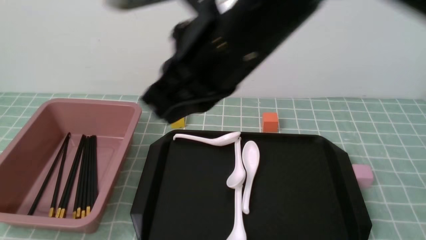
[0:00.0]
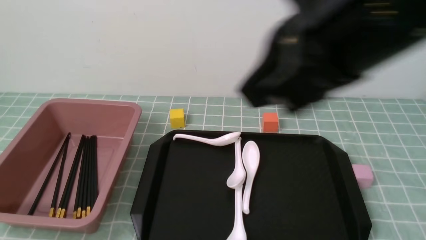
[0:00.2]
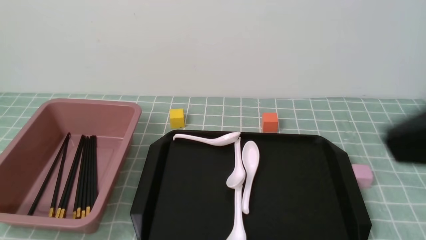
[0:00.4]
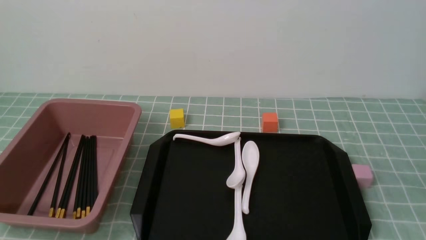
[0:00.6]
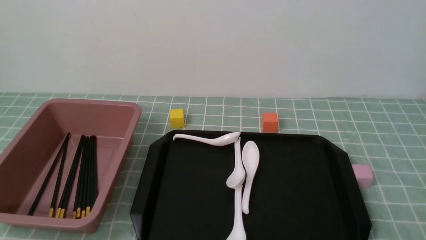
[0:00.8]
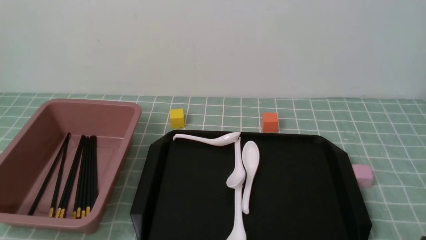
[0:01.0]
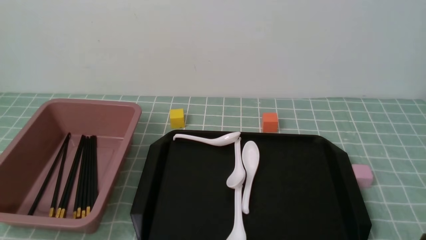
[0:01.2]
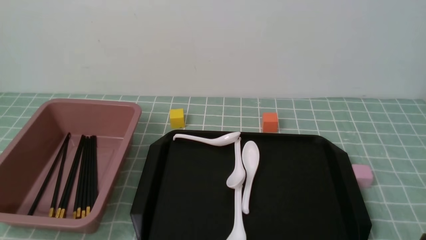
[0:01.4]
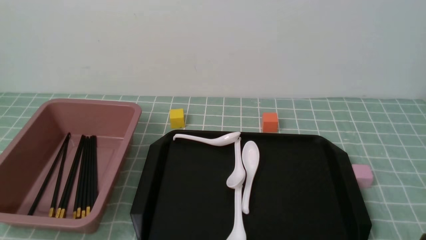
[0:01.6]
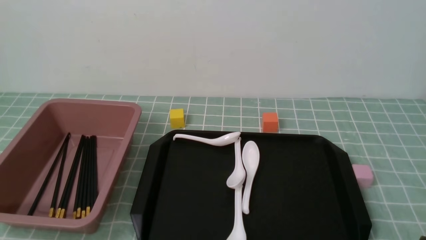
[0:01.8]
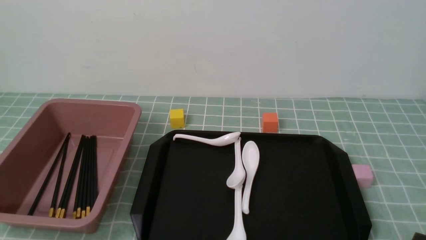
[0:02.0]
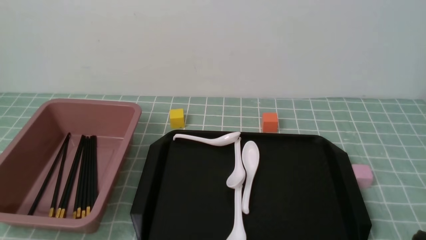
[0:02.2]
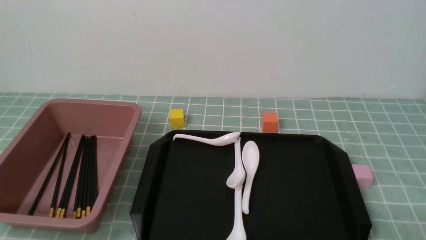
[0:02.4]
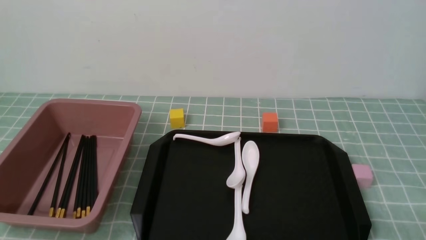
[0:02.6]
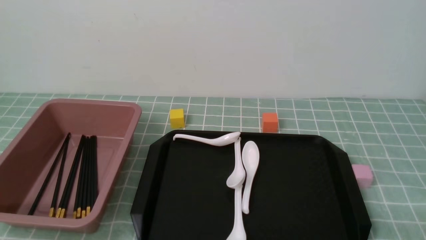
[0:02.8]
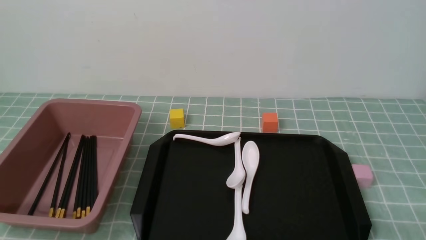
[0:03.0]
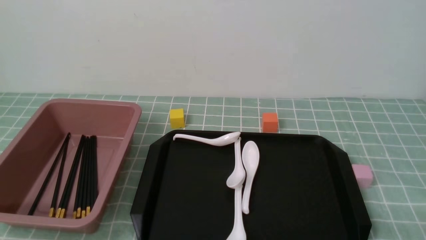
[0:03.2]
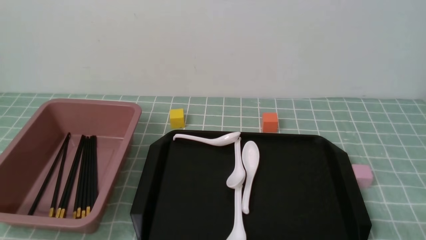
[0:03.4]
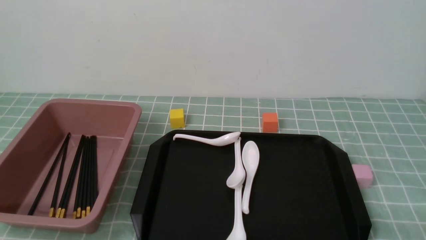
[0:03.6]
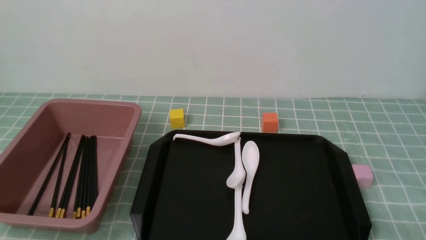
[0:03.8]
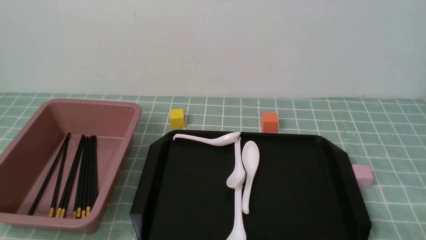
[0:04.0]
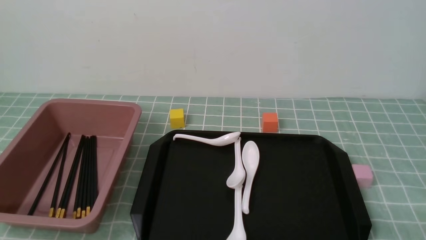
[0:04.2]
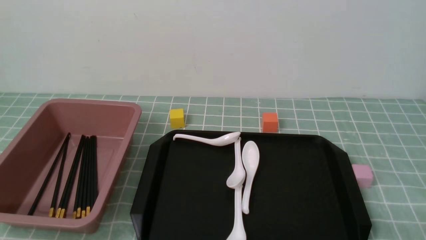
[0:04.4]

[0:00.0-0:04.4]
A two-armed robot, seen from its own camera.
0:00.0 to 0:01.4: The right gripper goes some 35 cm to the right, backward and downward.
0:03.0 to 0:04.4: Both grippers stay put.

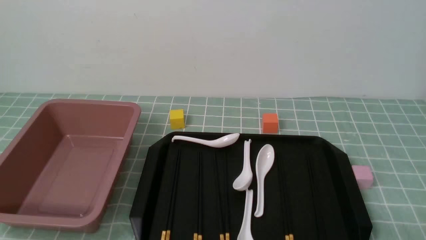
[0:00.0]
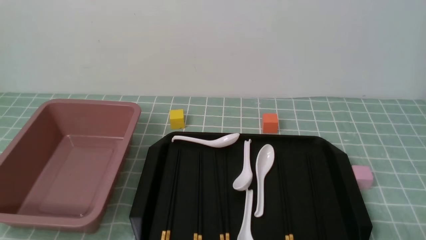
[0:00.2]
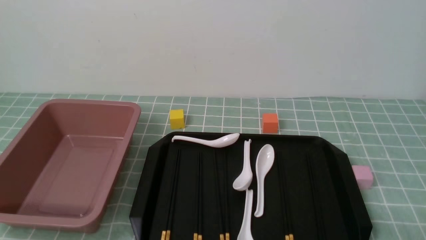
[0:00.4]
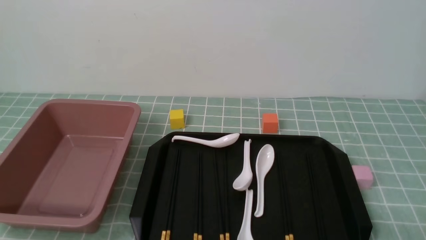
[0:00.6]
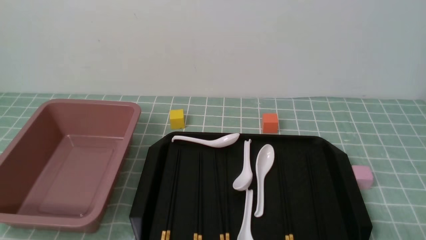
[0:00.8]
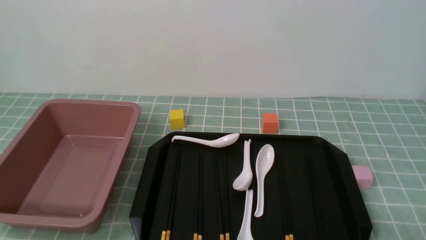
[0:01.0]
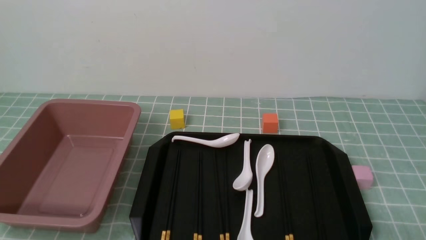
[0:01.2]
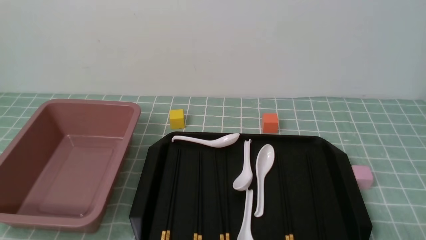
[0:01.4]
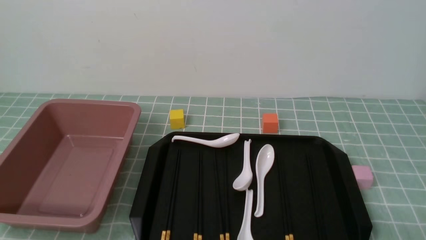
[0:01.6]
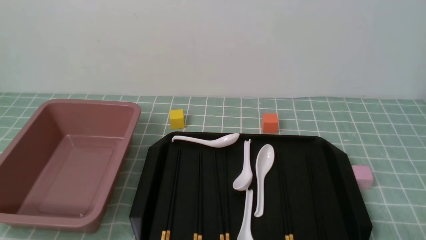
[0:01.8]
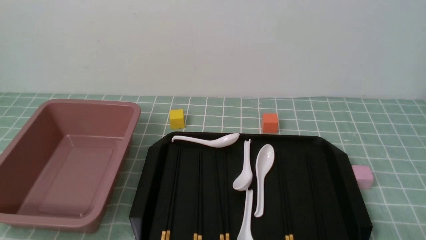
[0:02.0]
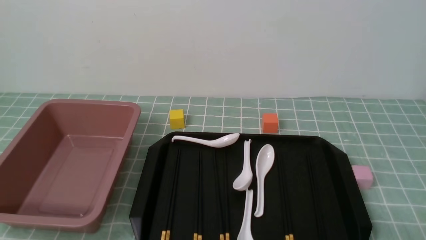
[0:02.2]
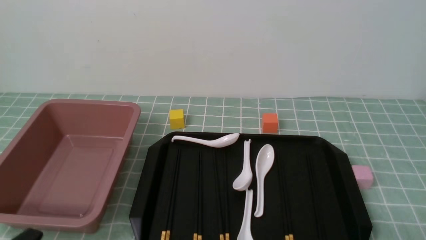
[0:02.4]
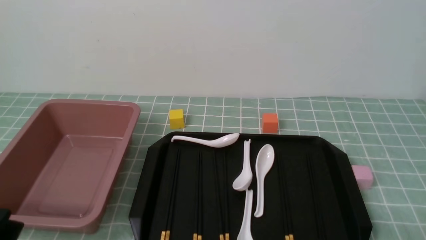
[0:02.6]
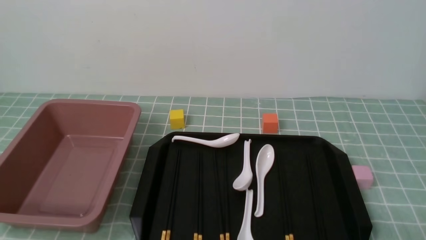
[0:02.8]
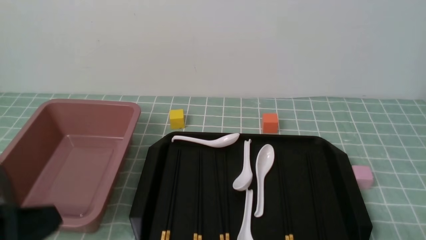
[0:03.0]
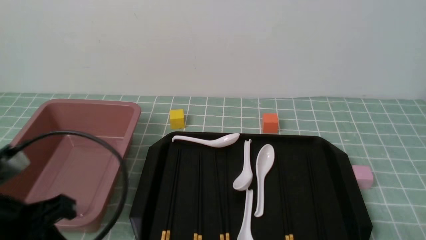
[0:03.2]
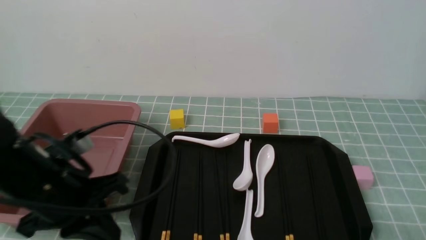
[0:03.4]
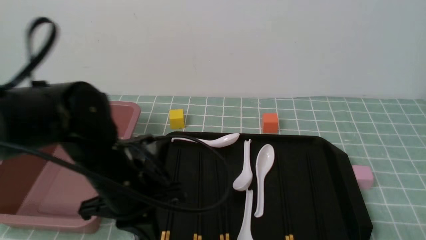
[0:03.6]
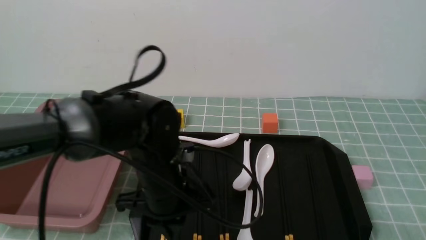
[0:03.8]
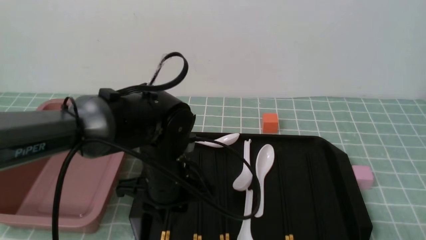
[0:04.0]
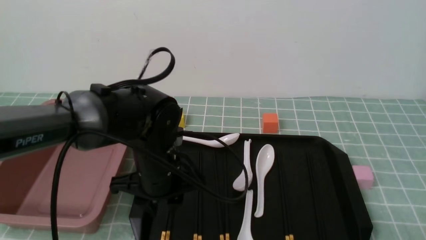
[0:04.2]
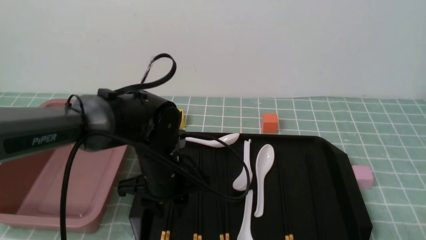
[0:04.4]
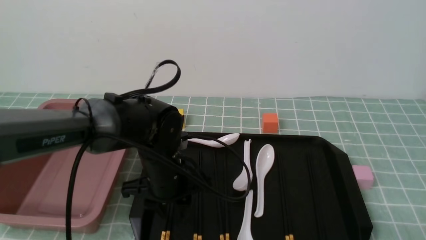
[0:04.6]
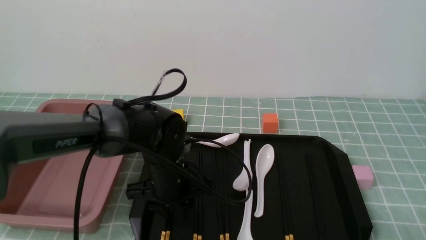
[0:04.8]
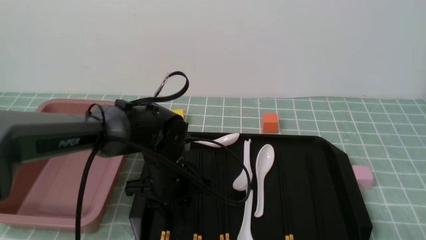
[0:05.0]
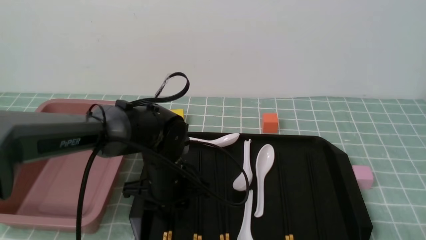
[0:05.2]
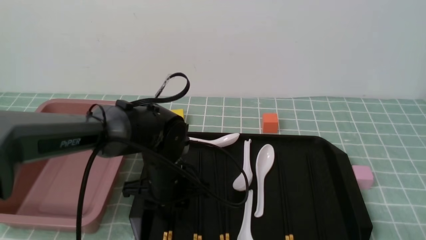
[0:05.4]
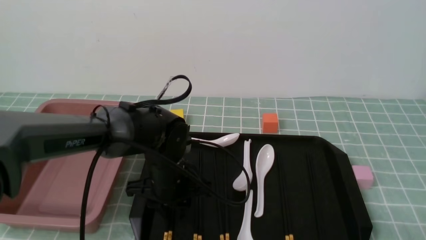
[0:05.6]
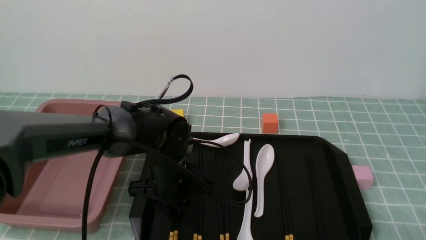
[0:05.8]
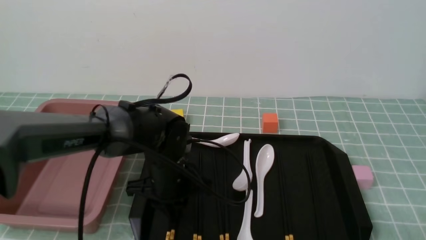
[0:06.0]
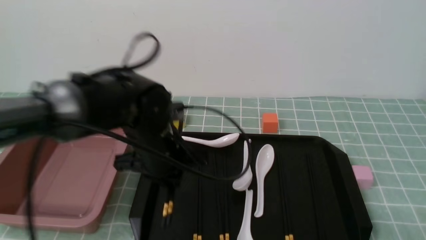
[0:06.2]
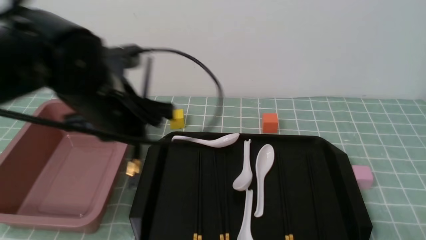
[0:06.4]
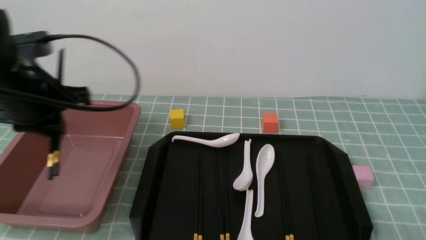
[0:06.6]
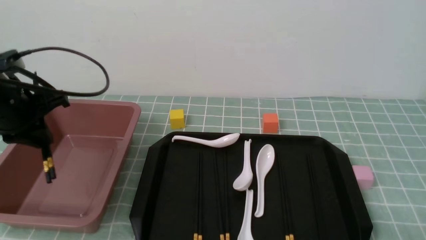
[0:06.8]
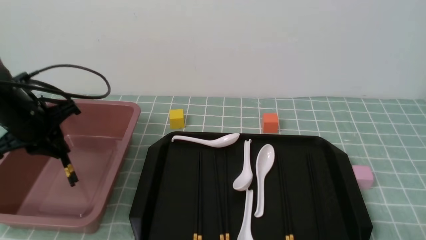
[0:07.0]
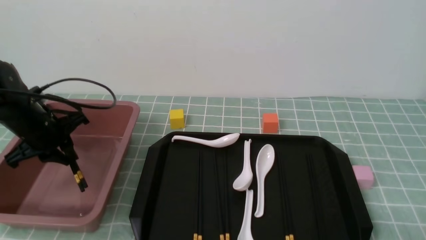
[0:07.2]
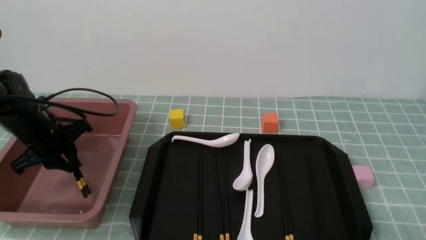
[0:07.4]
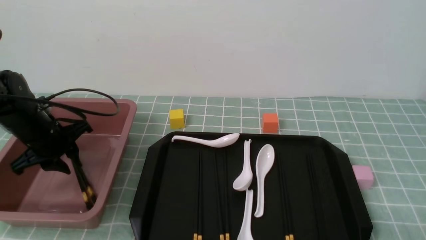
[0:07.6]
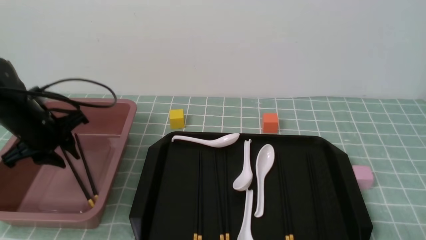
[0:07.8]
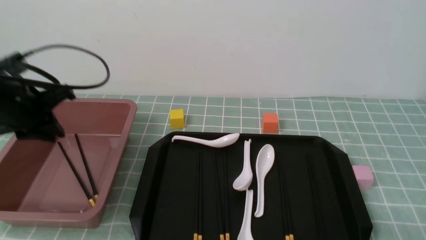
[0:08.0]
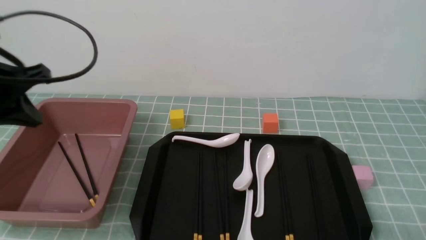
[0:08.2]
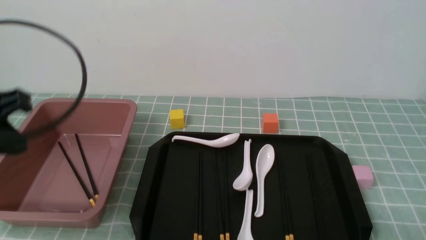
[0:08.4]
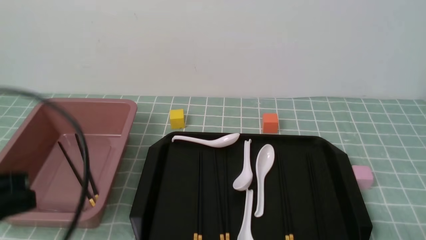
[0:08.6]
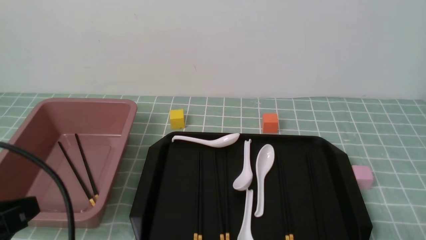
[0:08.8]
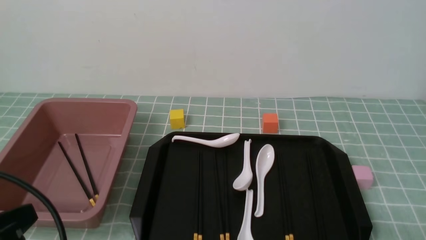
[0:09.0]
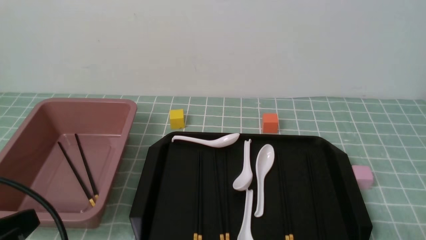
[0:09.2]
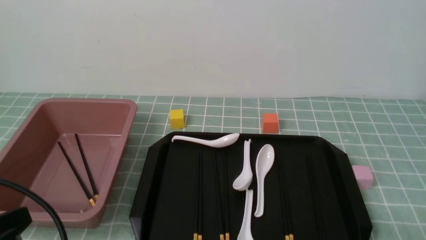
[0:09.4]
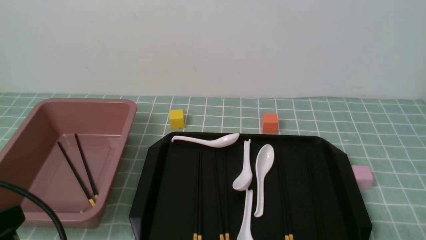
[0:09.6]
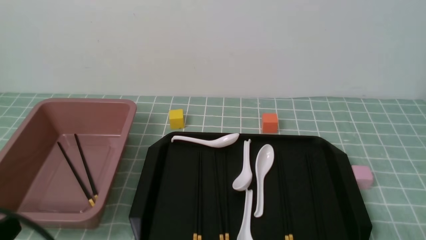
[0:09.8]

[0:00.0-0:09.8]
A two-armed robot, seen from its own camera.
Step, 0:00.0 to 0:06.2: use the left arm to grab a pair of chopsticks.
Step, 0:06.4 to 0:08.0: use the left arm to put the chopsticks into the lunch box.
0:02.8 to 0:04.2: The left gripper heads forward and to the right, covering some 30 cm, and opens up.
0:04.2 to 0:05.6: The left gripper changes place by about 5 cm.
0:05.6 to 0:07.0: The left gripper heads to the left and upward, covering about 25 cm, and closes up.
0:07.0 to 0:08.4: The left gripper moves backward and upward, roughly 15 cm, and closes.
0:08.4 to 0:09.8: The left gripper moves backward and downward, approximately 20 cm.

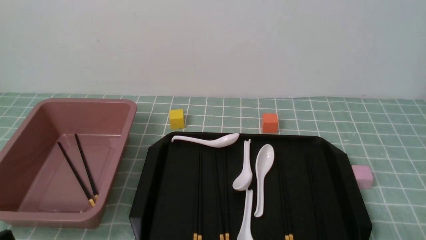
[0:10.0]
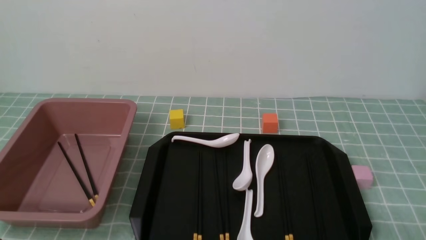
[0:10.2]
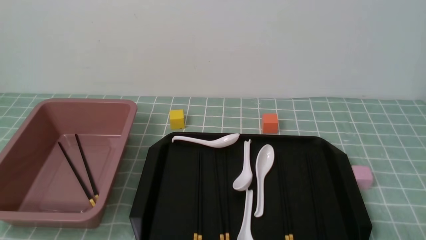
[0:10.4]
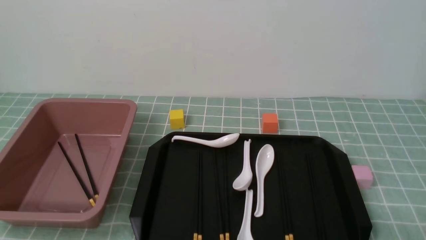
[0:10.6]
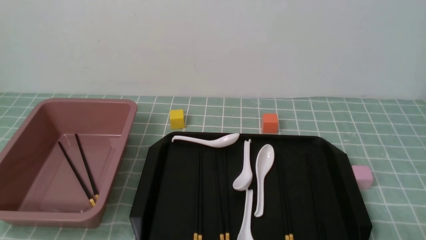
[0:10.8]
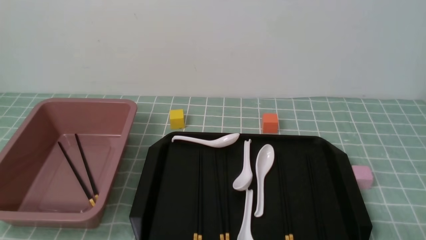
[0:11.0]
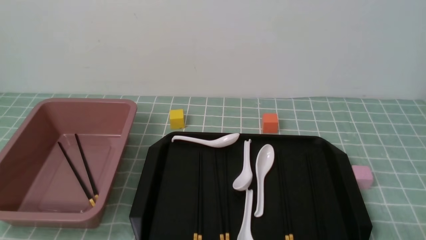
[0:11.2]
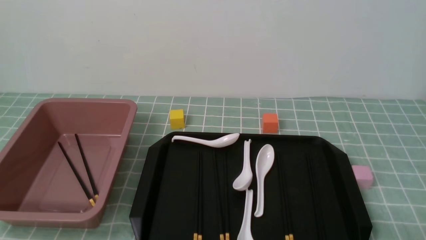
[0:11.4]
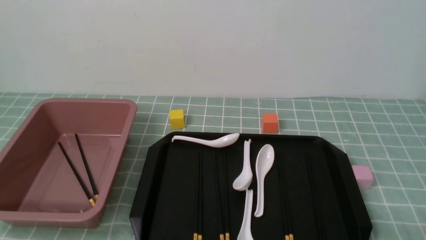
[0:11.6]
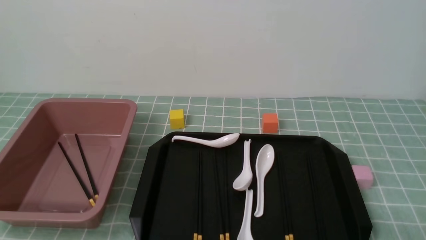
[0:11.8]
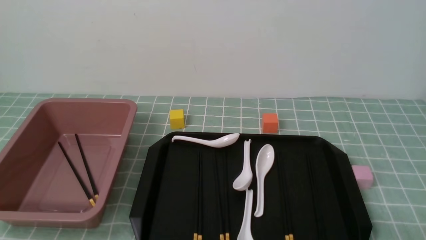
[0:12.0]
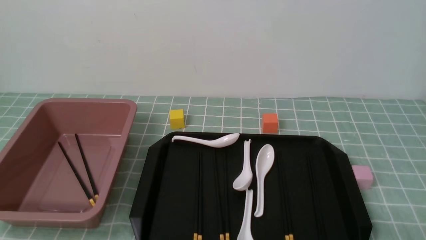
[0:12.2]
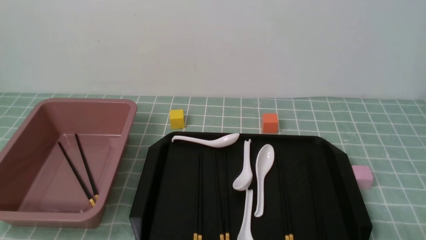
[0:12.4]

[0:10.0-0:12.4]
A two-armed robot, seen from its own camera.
0:11.2 to 0:12.4: Both grippers stay about where they are.
